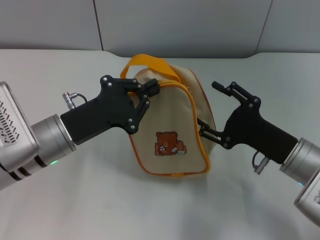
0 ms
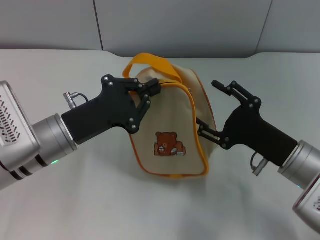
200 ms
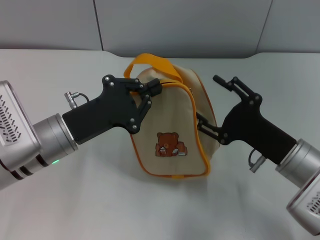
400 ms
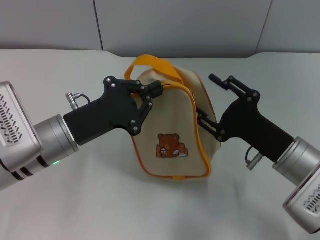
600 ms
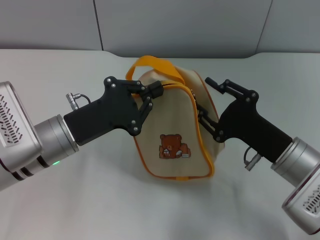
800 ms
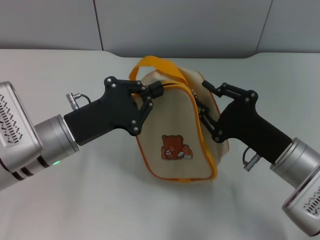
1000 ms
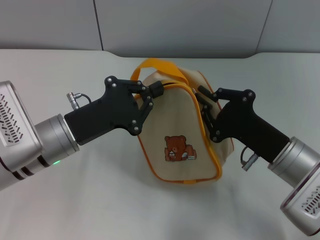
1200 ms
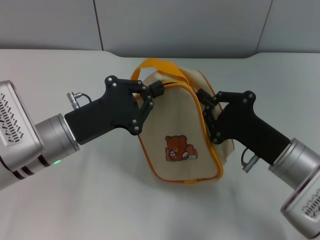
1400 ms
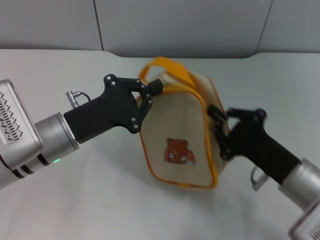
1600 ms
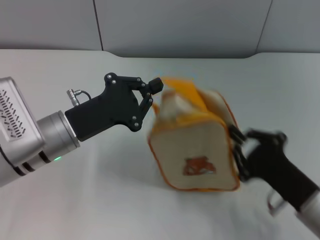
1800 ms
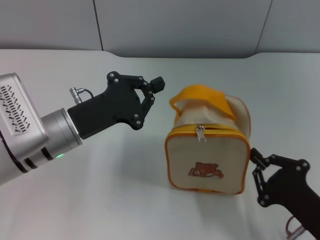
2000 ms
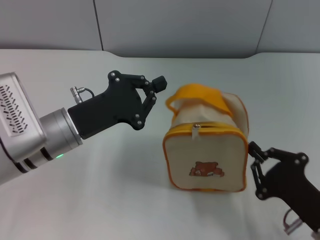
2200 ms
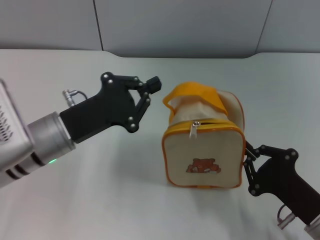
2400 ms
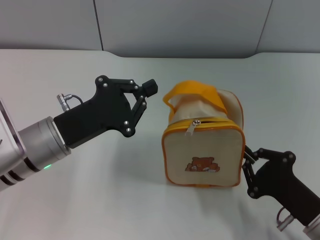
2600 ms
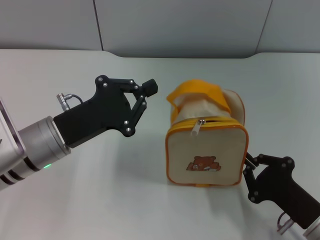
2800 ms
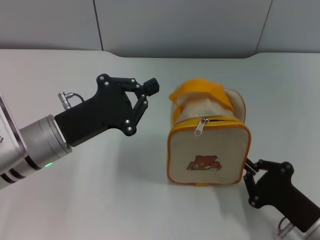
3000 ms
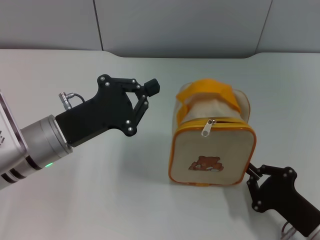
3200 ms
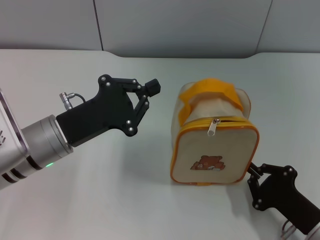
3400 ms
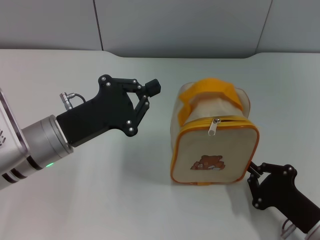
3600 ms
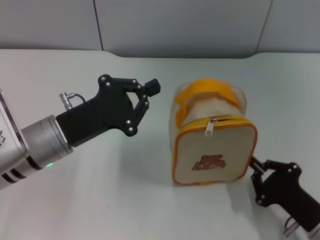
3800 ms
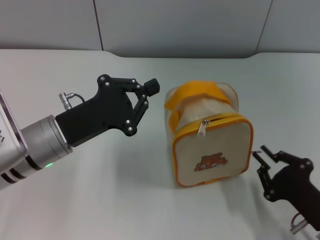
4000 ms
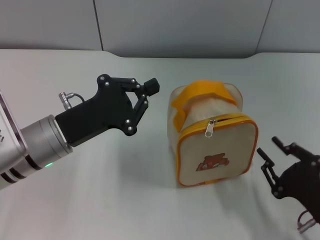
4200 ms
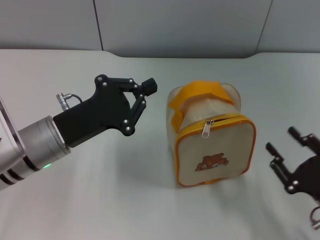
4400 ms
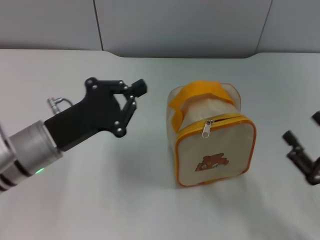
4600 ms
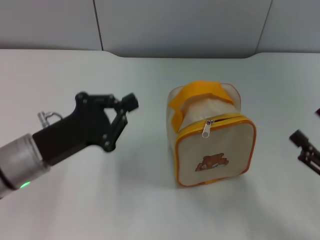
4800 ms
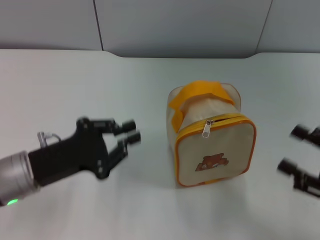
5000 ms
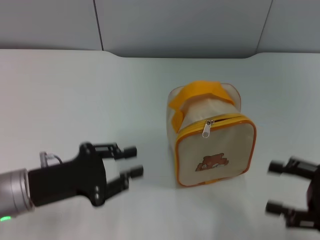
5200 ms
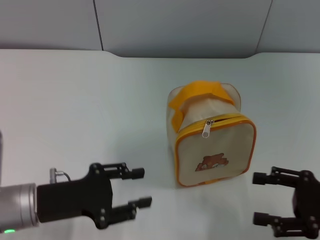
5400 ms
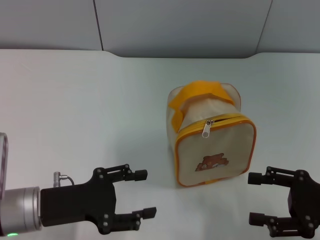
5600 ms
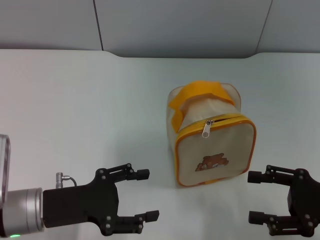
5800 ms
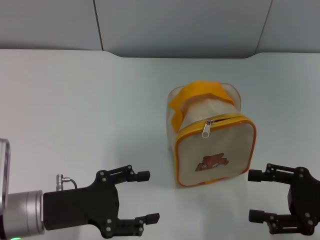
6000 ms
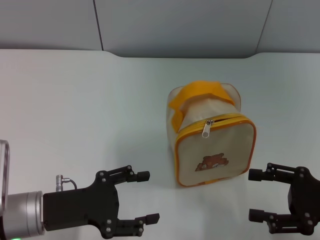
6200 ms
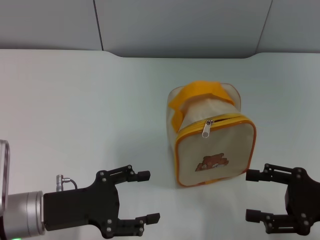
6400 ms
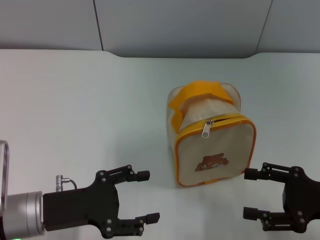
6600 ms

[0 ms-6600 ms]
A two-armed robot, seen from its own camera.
Step, 0 ms to 4000 ms: Unzip the zipper of bag with right gripper.
0 ms to 1600 ms: The right gripper closes.
1600 ms to 3200 ms: The right gripper moves backward and downward, about 10 cm.
3200 ms to 5000 ms: The left gripper shifts by approximately 5 cm. The right gripper heads upward and to the right, covering about 10 cm, and opens.
5000 ms to 6600 ms: The left gripper opens.

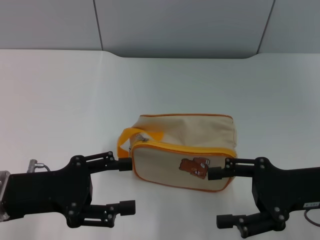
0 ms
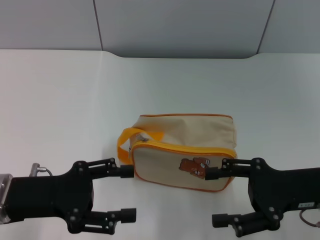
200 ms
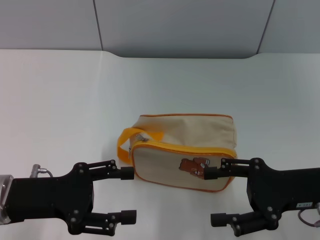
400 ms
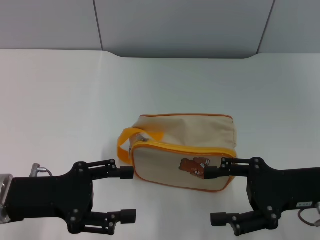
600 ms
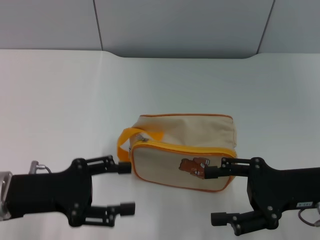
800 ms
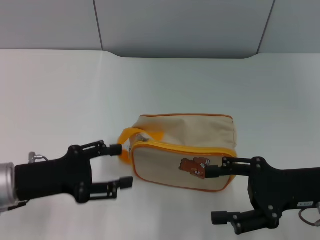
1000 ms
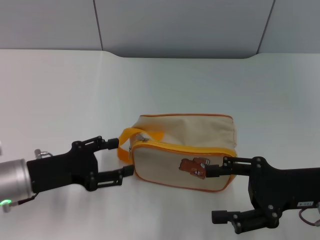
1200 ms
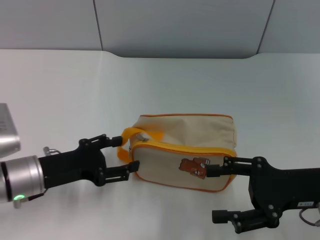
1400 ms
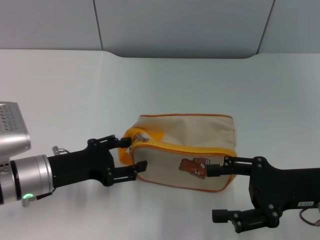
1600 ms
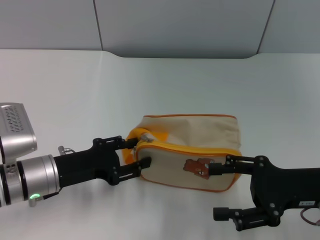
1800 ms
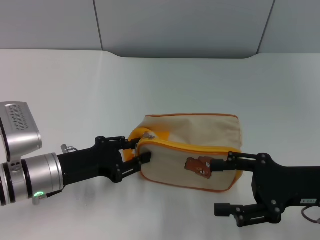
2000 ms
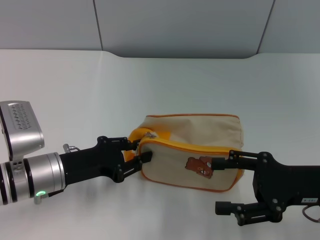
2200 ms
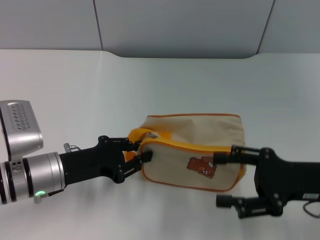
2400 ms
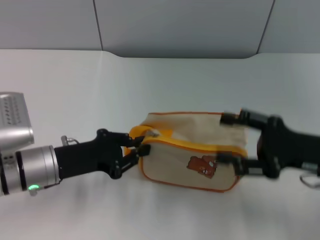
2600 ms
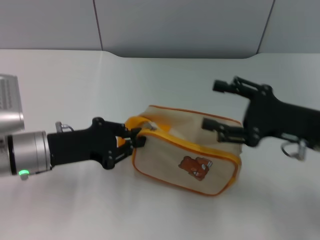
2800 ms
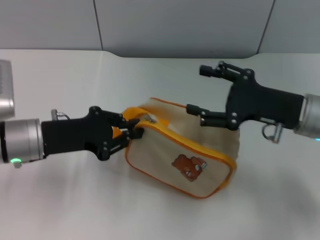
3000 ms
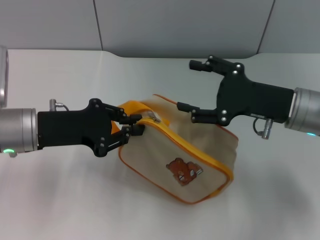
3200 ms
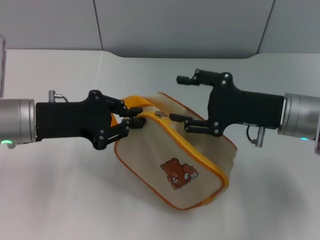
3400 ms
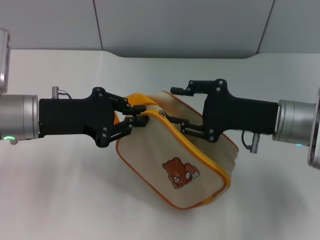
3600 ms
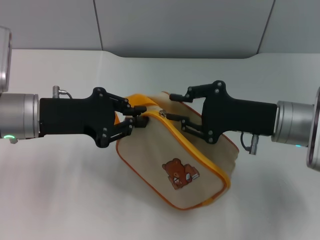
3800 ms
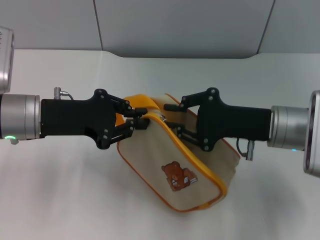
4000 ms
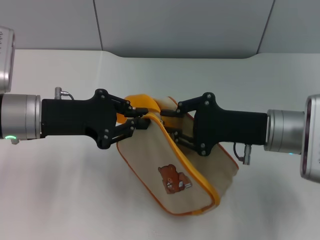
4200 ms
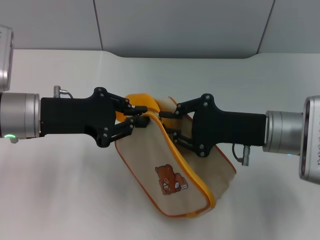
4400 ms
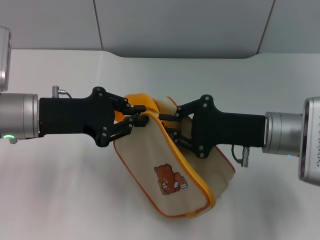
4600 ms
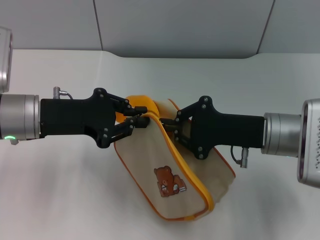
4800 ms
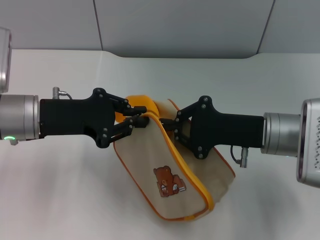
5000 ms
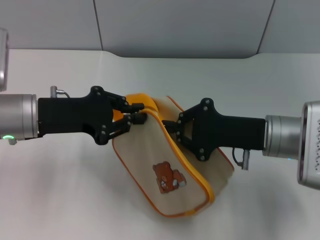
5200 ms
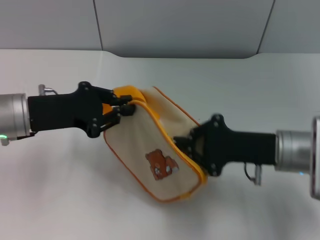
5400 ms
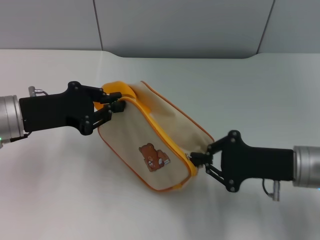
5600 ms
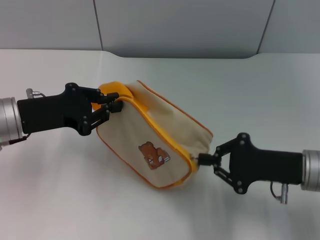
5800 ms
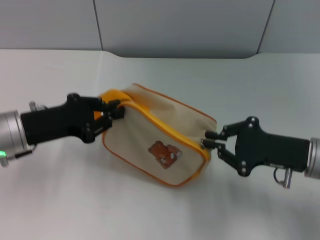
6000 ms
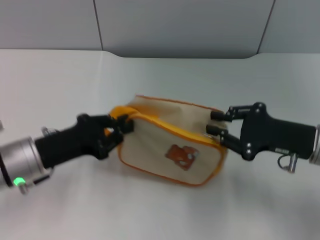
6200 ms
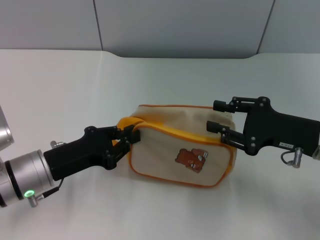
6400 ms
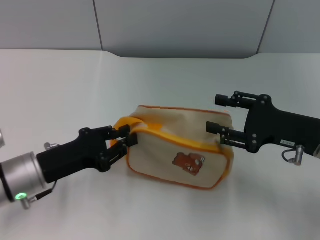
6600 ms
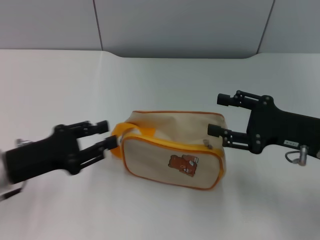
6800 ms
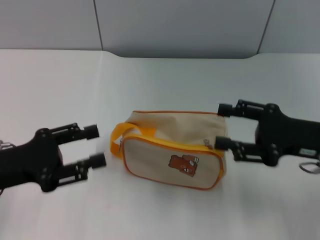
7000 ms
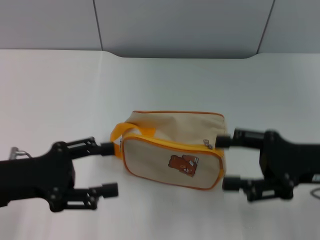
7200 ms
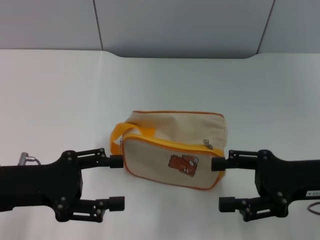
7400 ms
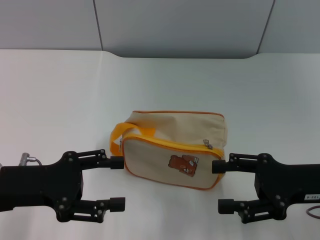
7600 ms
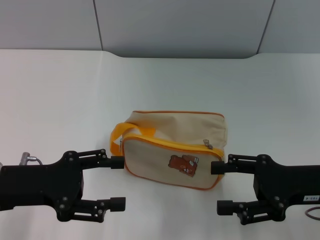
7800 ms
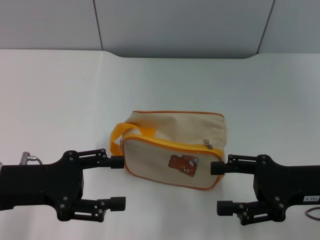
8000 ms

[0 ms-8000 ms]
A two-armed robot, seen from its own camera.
Step, 0 ms to 3000 ms: Pick up the bag with left gripper.
Step, 3200 ms to 6400 ms: Unzip the zipper of bag with right gripper.
Step, 6600 ms to 6800 ms: Place the bag on the table with left gripper.
0 ms to 1600 ms: The left gripper changes place by some 5 cm.
1600 ms to 3200 ms: The left gripper goes some 5 cm upward, and closes; the right gripper is displaced forward by some 10 cm.
3200 ms to 4800 ms: The right gripper closes.
4800 ms to 6400 ms: The left gripper shifts roughly 10 cm downward and backward. The right gripper travels to the right by approximately 5 cm.
6400 ms to 8000 ms: The right gripper opens up; the left gripper moves upward, approximately 5 cm, and opens.

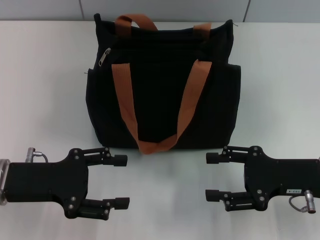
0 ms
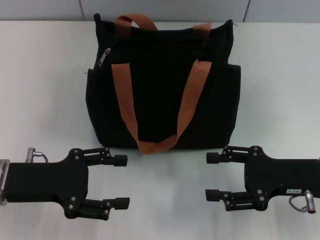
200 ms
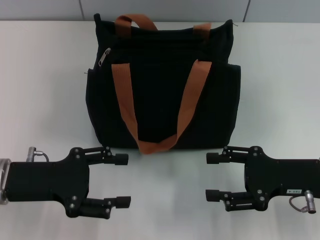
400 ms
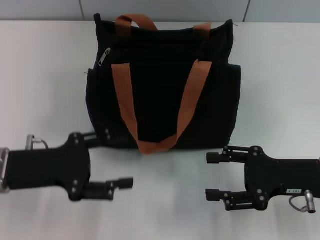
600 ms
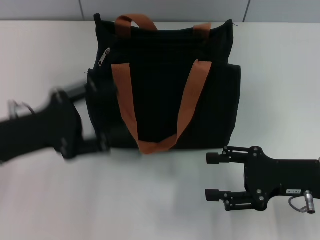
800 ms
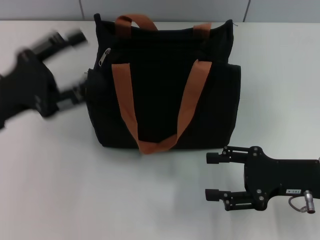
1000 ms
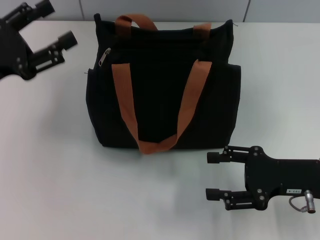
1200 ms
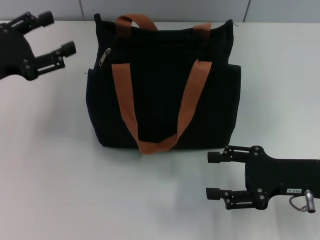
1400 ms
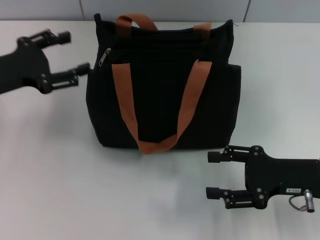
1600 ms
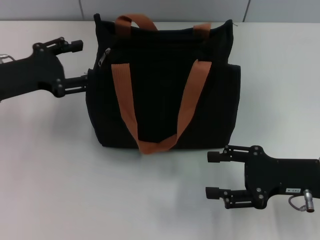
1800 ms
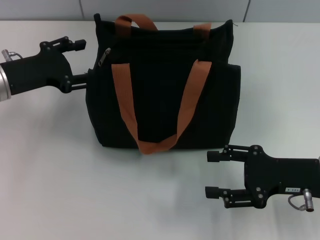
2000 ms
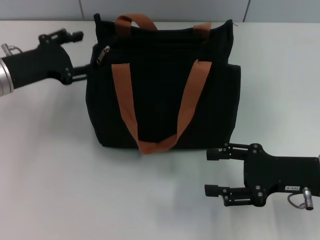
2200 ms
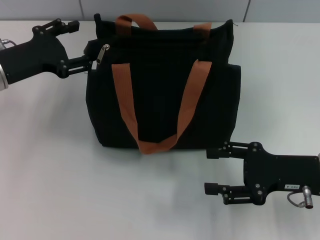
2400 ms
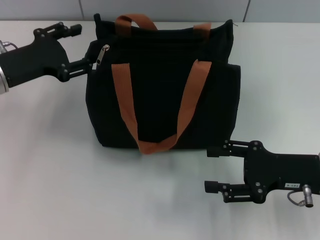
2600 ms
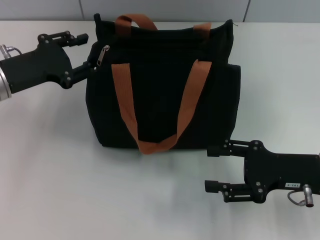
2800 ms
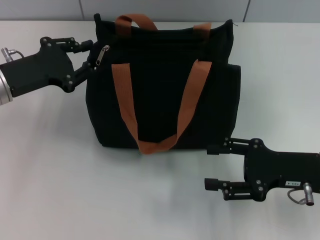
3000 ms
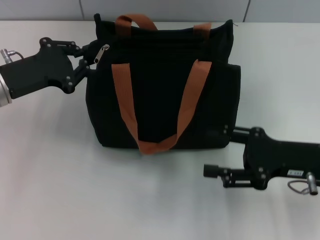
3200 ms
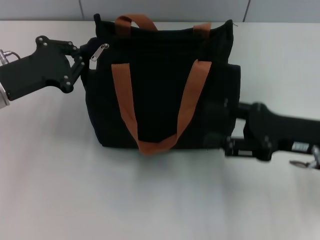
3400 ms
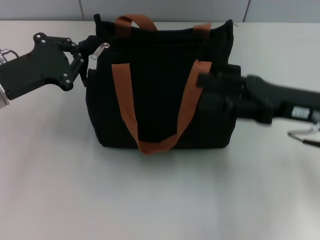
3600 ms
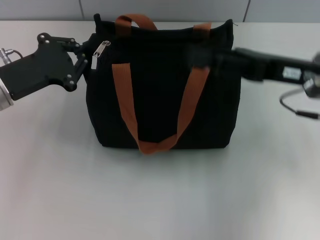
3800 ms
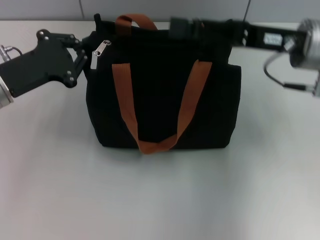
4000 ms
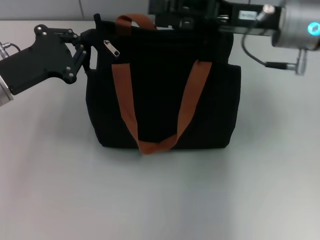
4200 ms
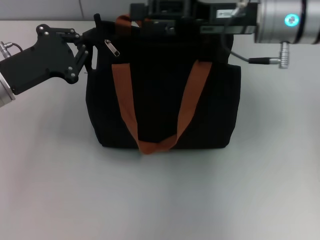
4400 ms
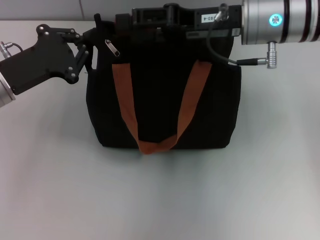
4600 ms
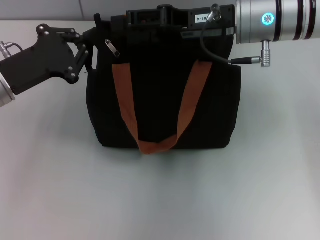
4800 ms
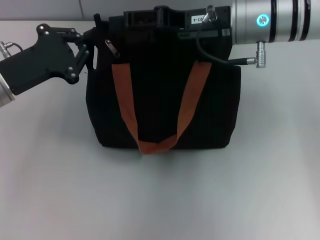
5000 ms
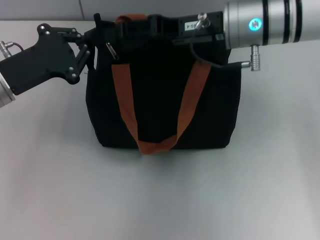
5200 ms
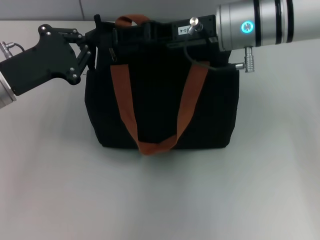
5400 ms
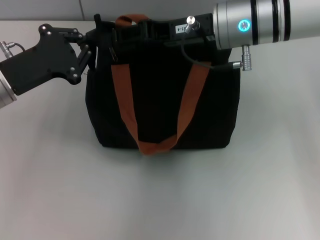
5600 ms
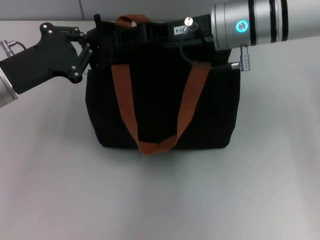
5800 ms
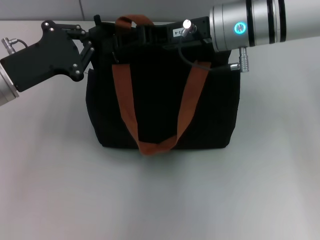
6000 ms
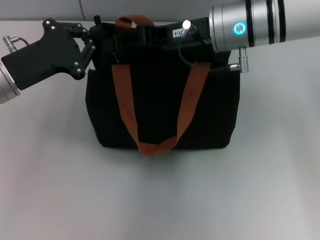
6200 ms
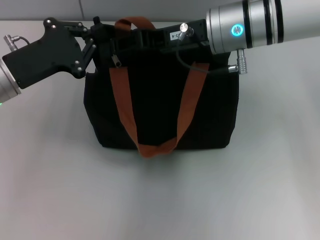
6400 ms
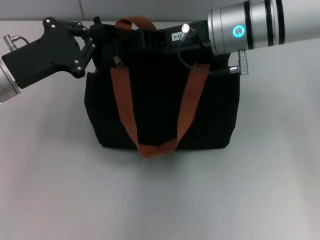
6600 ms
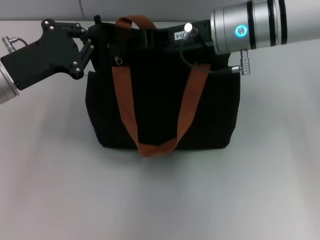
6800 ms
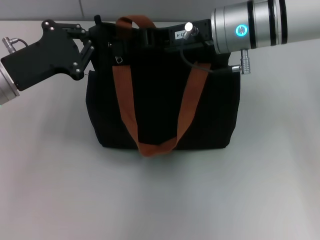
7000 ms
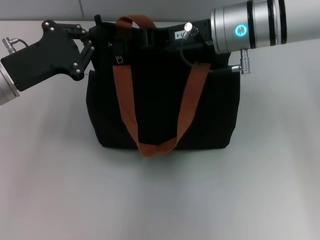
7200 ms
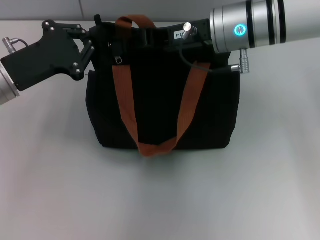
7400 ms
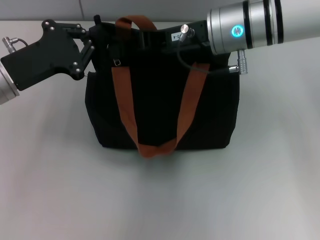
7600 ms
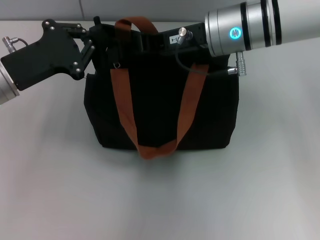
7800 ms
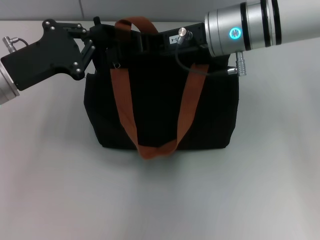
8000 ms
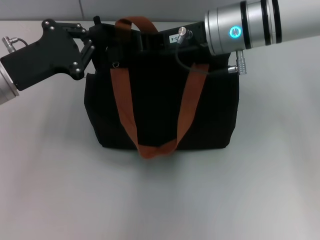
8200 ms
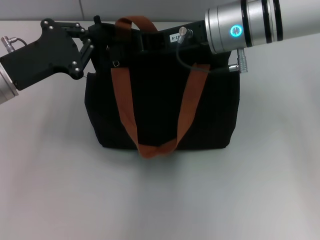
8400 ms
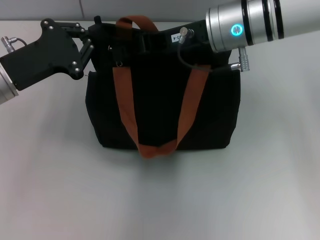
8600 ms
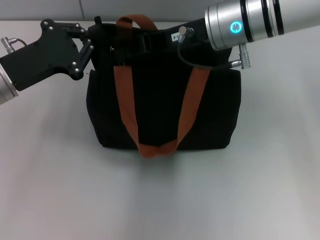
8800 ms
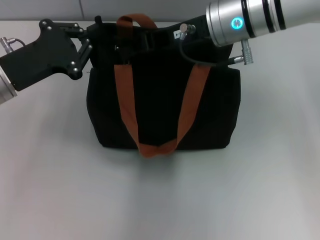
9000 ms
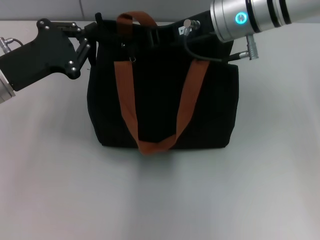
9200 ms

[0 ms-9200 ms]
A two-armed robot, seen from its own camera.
0 ms to 1600 ms: The left gripper goes some 10 cm forward.
1600 ms to 3000 ms: The left gripper closes.
3000 ms to 4600 ms: The right gripper shifts approximately 20 cm forward, upward and to the left. Meanwhile the left gripper closes its fingers.
4600 ms to 6200 ms: The right gripper closes its fingers.
6200 ms to 7600 ms: The right gripper closes up.
7600 ms to 9200 ms: The grippers make only small movements.
